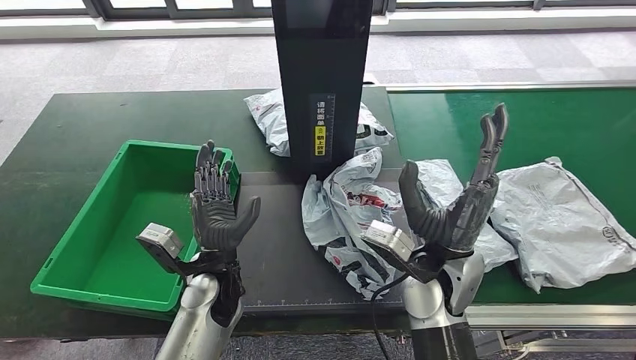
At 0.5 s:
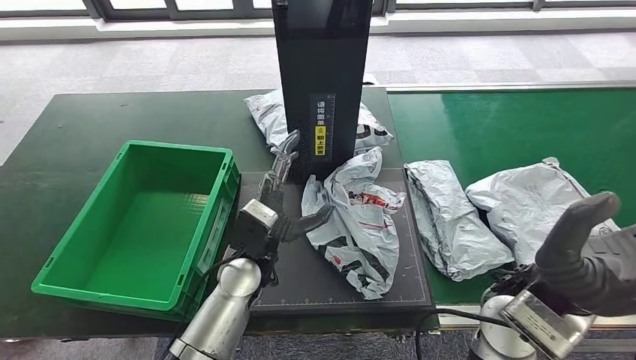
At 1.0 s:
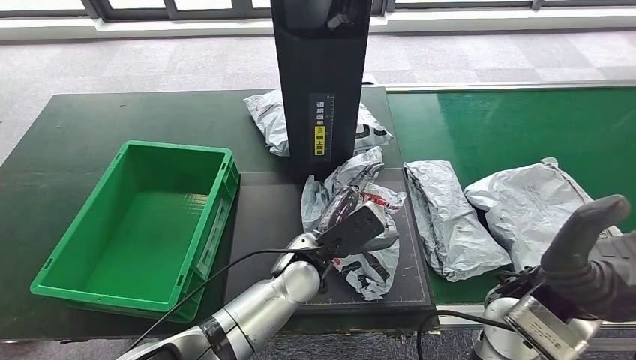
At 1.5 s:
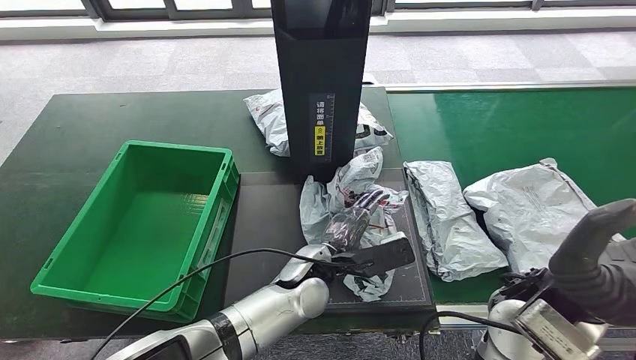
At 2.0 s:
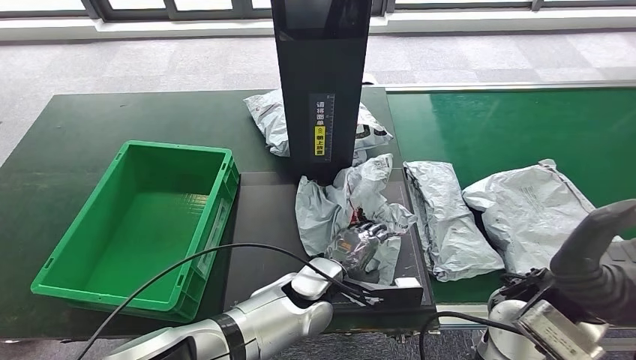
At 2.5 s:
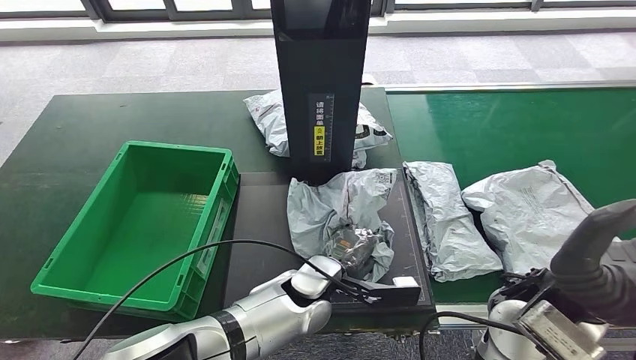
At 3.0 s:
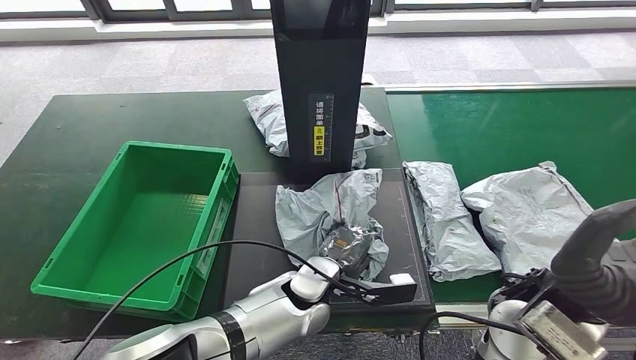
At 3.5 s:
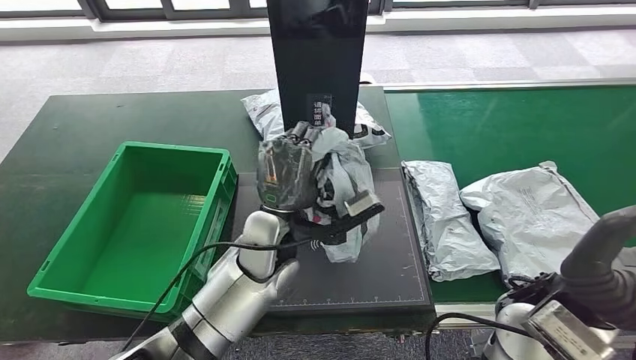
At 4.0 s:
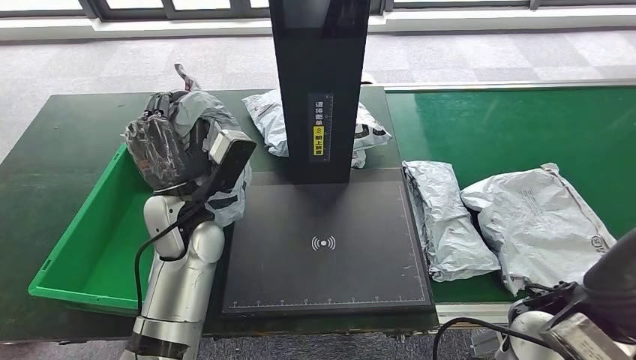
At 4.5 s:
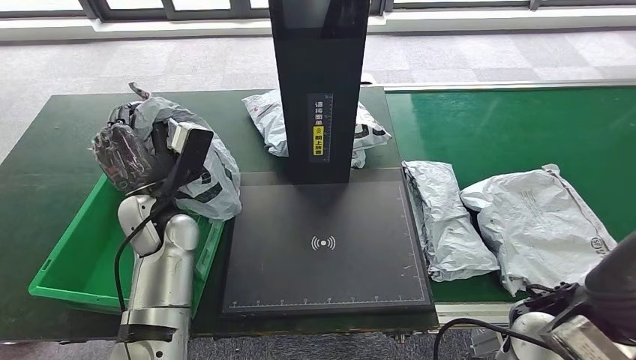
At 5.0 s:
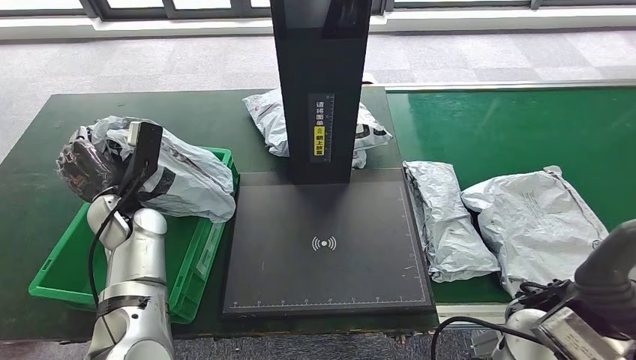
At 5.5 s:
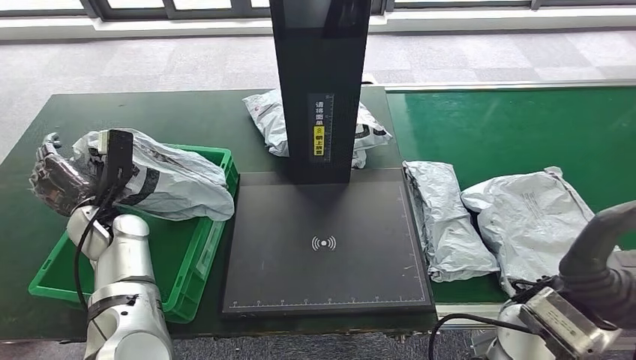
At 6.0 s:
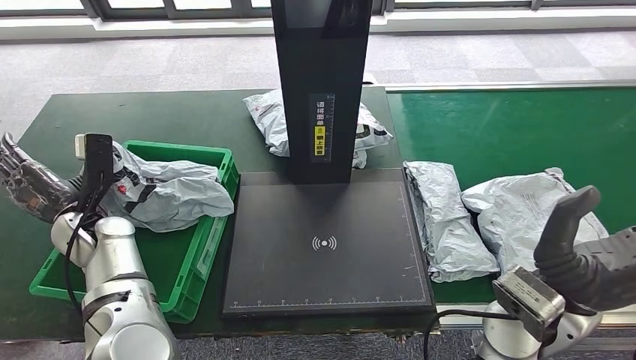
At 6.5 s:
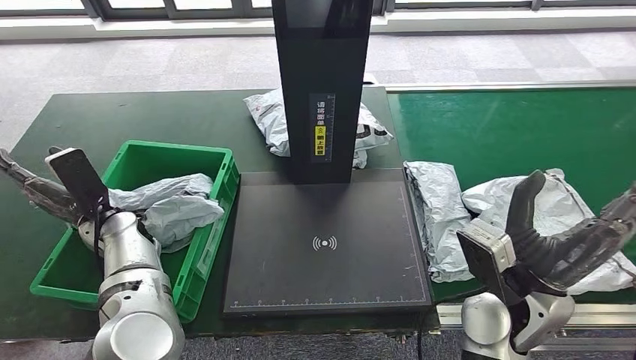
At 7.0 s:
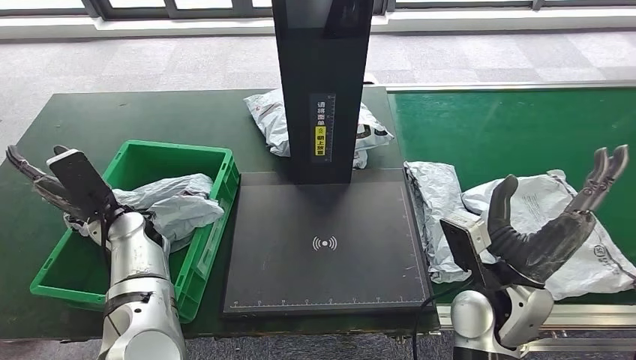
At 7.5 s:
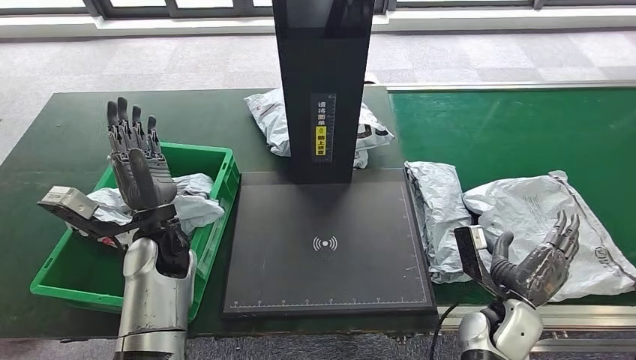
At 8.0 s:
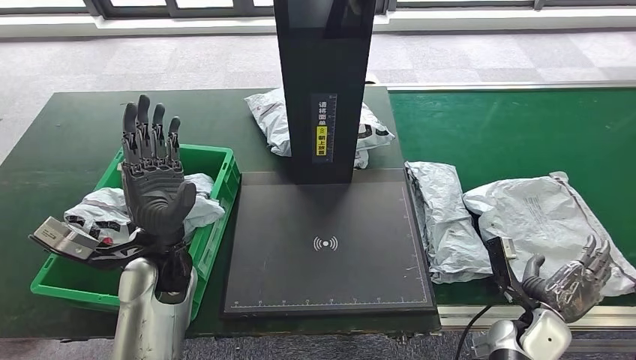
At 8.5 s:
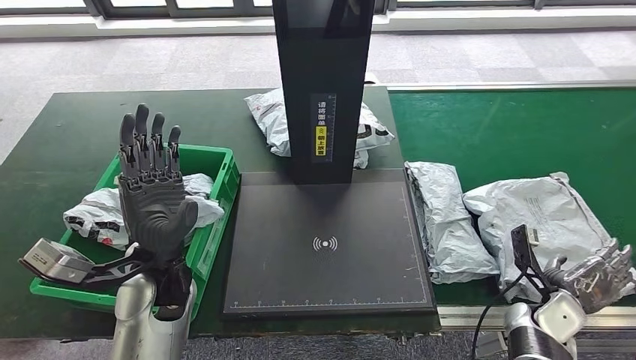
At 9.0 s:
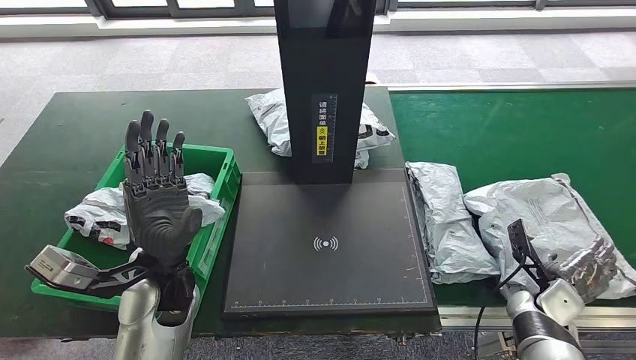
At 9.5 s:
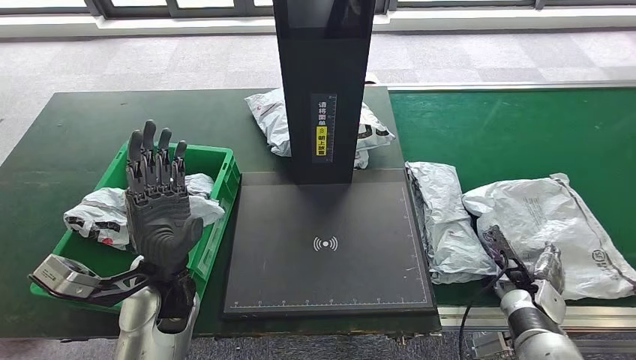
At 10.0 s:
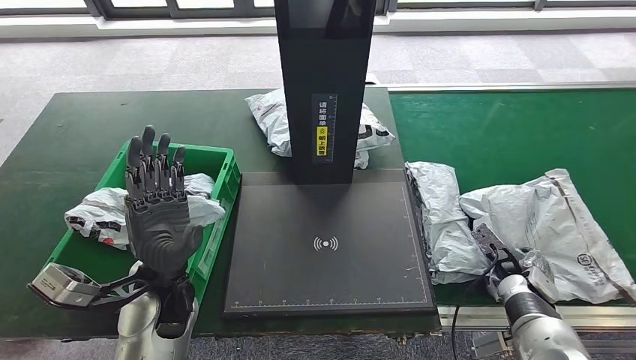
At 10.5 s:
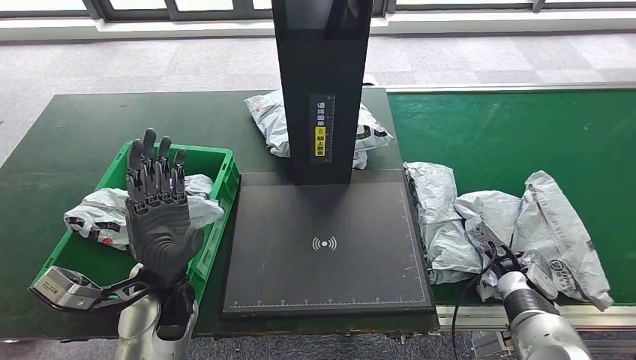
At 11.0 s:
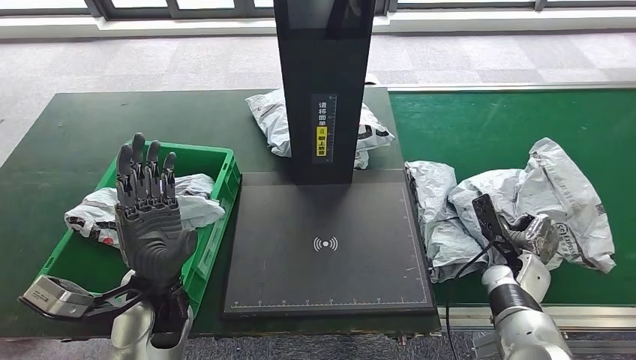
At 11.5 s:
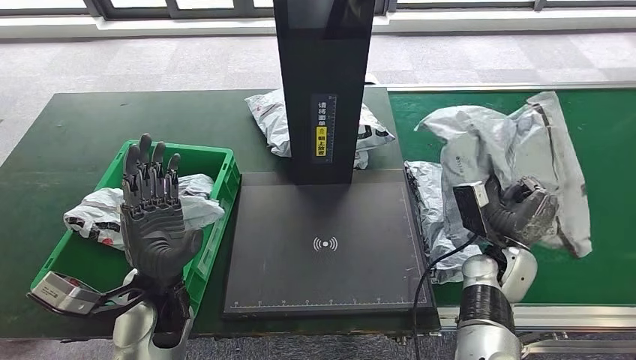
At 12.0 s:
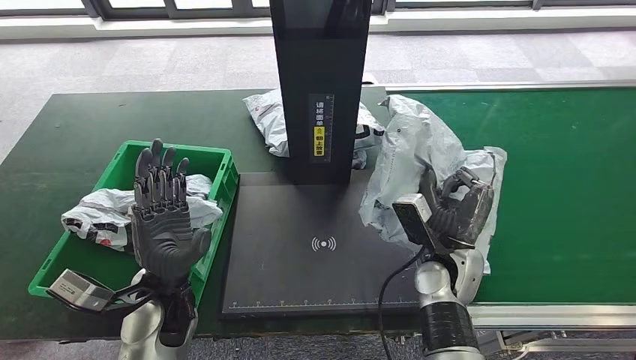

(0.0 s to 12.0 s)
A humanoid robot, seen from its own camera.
Step, 0.5 s - 4.0 s: Pick up the parcel from the inbound machine.
Step, 5.0 s - 6.5 s: Put the parcel inside the courier box.
Step, 7.0 s - 11.5 s: Pick up the parcel from the conveyor belt.
8.0 s - 10.0 s: The right hand moves forward, about 10 cm.

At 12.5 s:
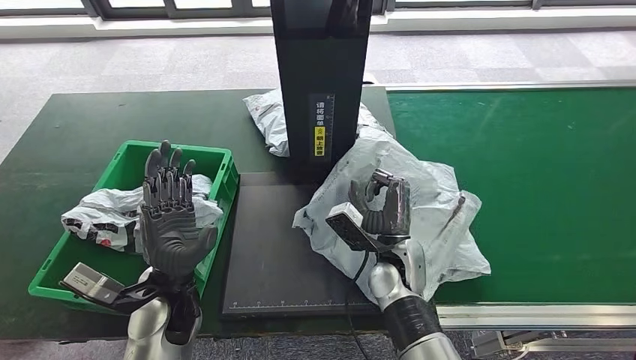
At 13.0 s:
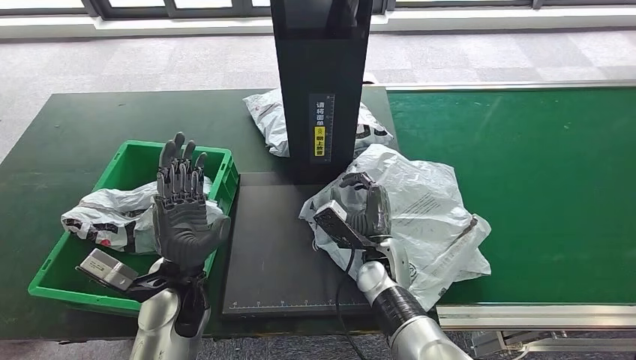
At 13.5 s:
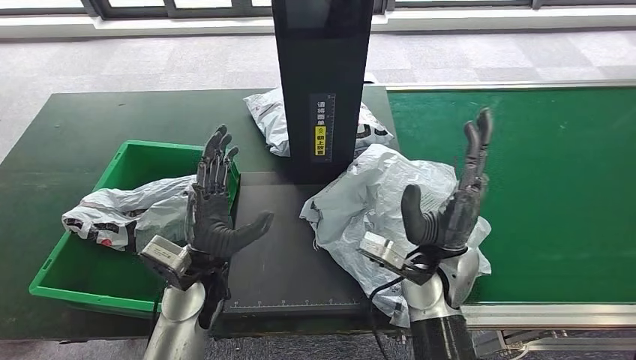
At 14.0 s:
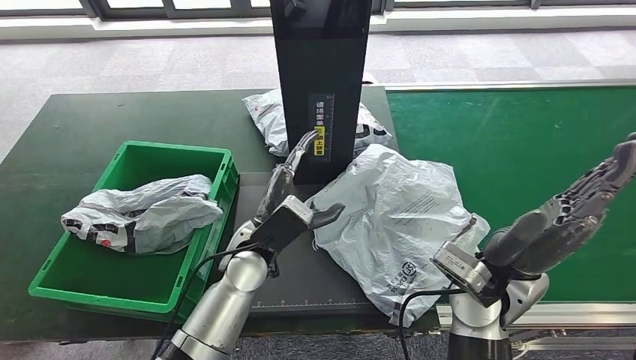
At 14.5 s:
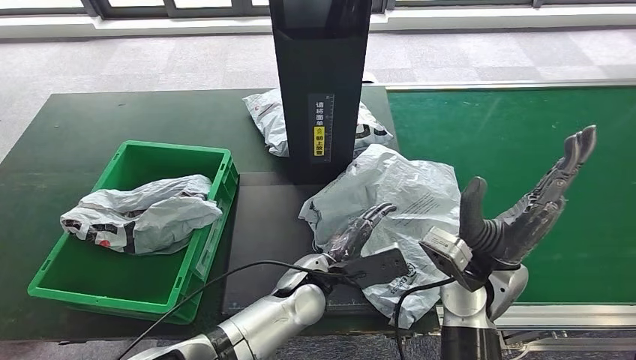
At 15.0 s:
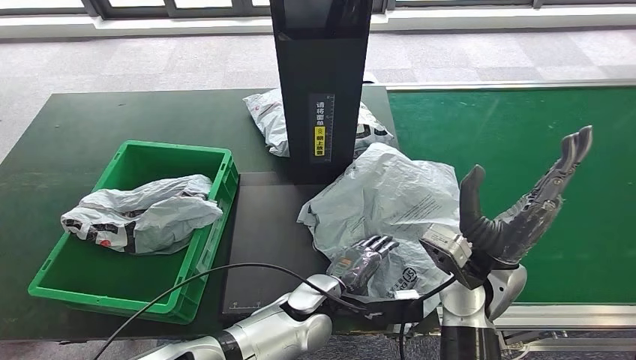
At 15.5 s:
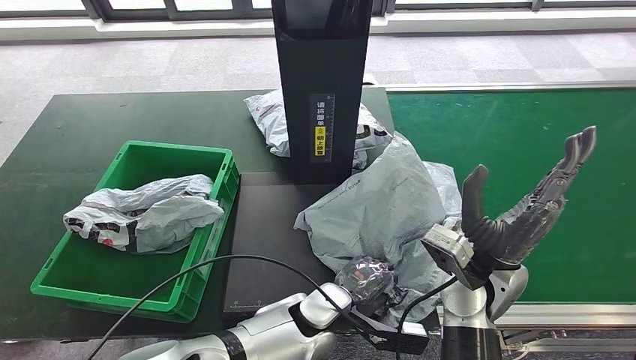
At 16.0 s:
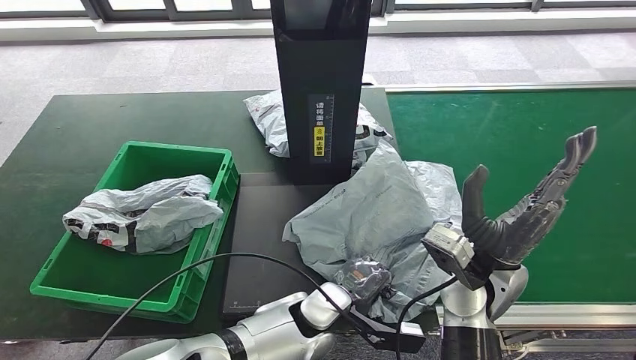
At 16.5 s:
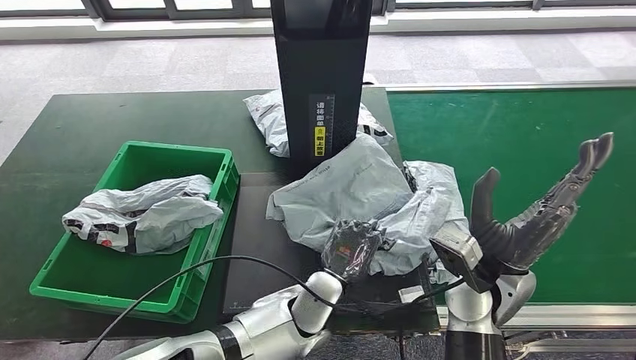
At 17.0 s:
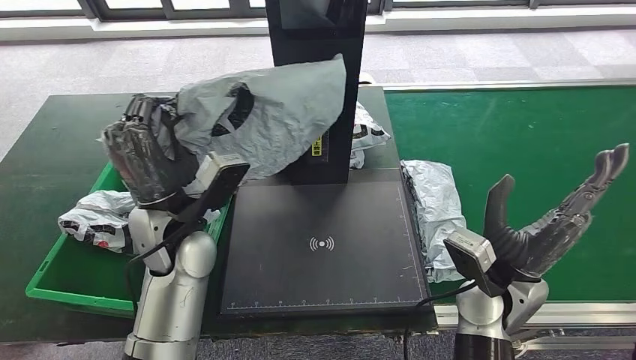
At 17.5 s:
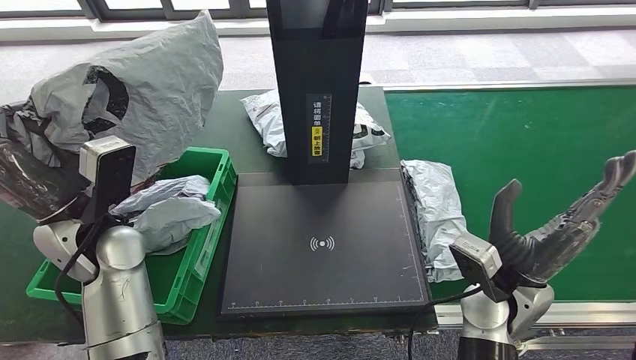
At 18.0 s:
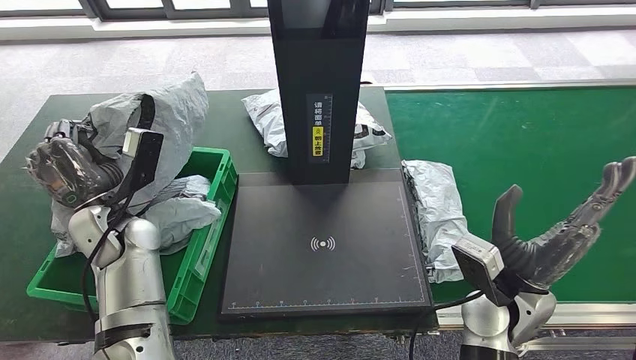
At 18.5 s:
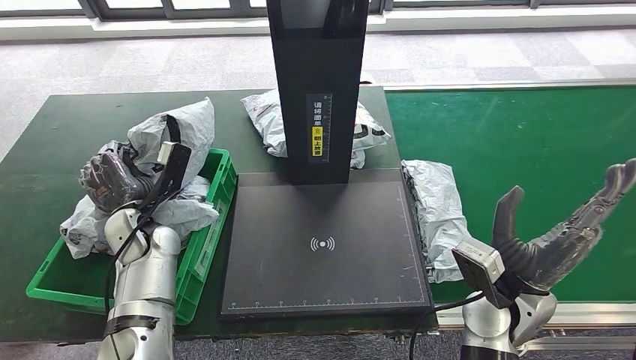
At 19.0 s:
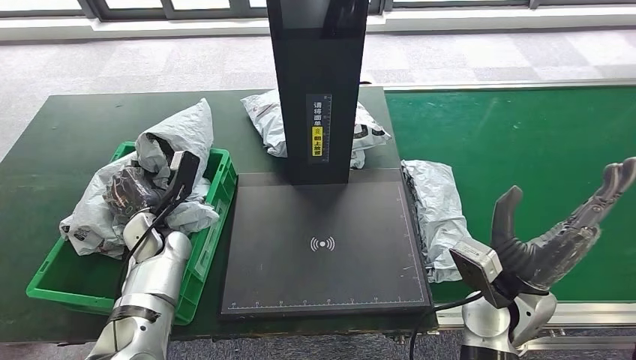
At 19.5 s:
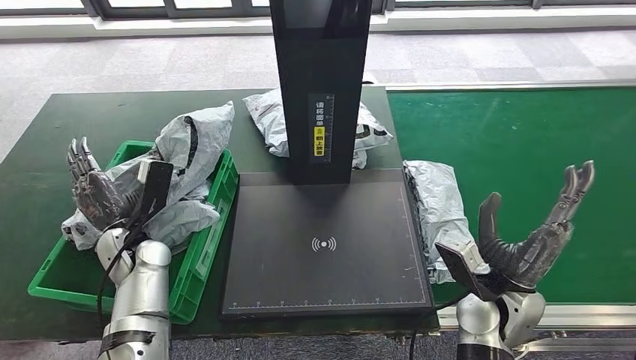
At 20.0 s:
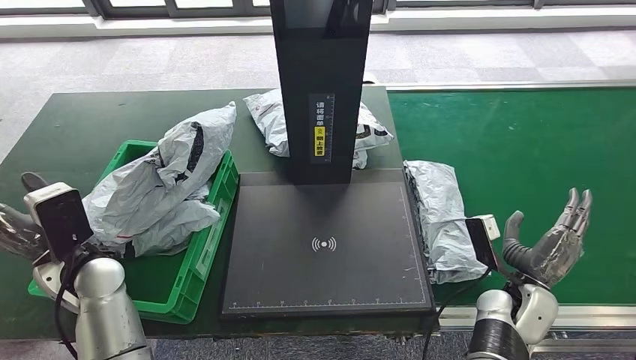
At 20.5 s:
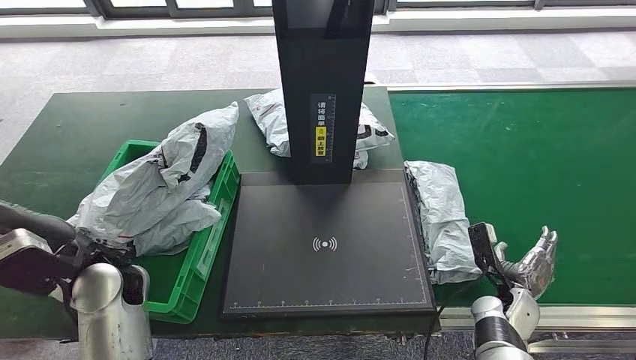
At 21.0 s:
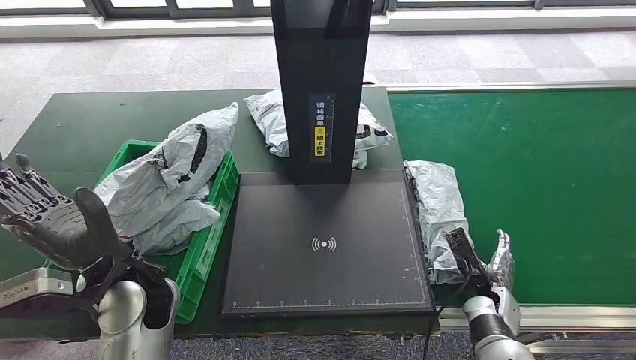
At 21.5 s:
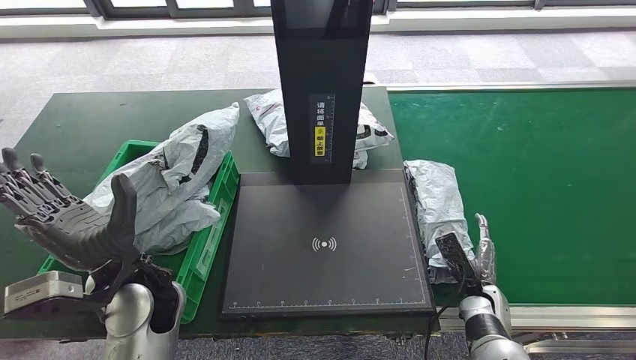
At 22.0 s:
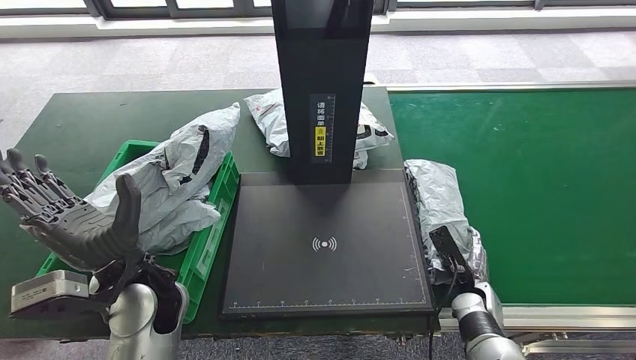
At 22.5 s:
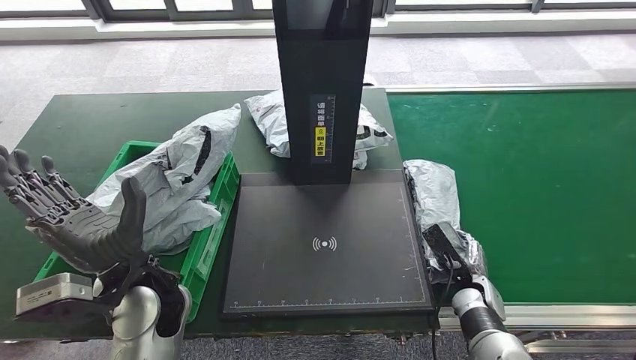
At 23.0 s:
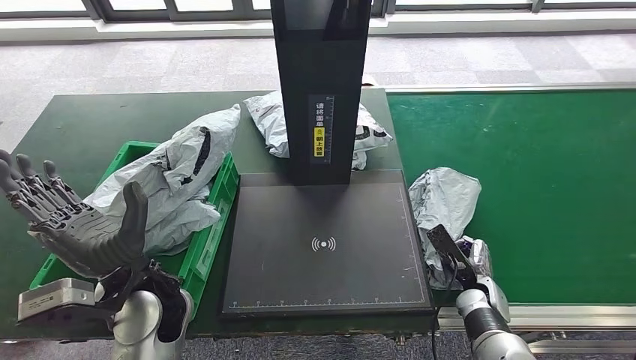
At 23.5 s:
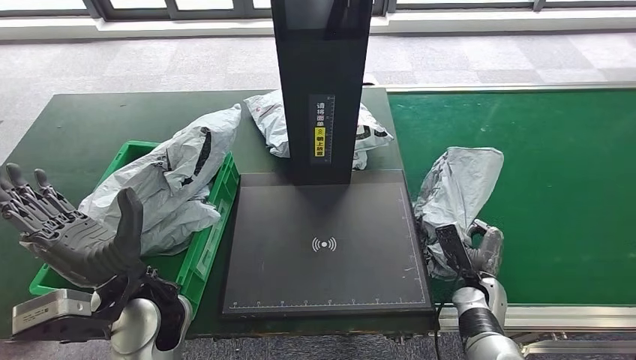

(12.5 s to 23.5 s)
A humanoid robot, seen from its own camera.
Step, 14.0 s - 17.0 s: Pick up the parcel from the inbound machine.
Step, 18.0 s - 20.0 s: Place the parcel into the delivery box.
20.0 s - 21.5 s: The left hand moves to the right, some 10 cm, while the right hand is displaced downward by approximately 10 cm.
